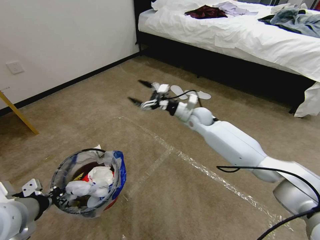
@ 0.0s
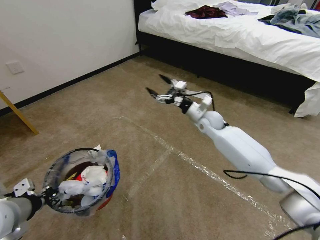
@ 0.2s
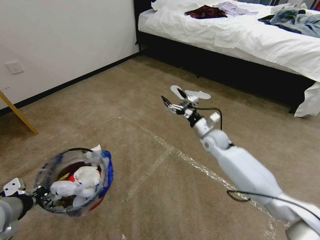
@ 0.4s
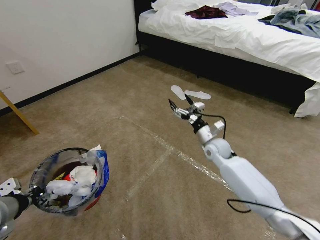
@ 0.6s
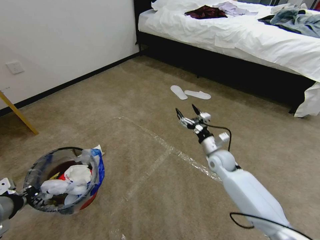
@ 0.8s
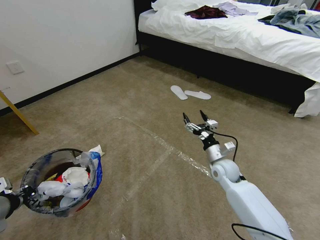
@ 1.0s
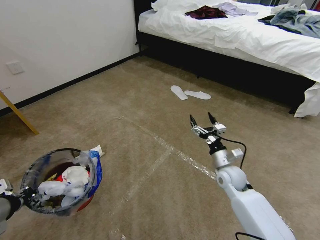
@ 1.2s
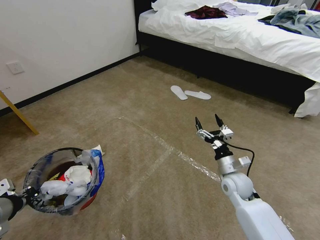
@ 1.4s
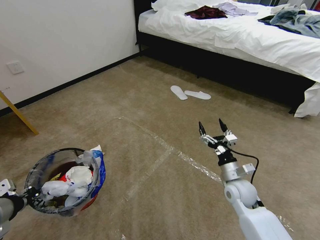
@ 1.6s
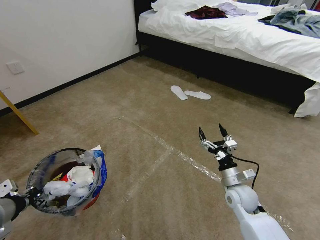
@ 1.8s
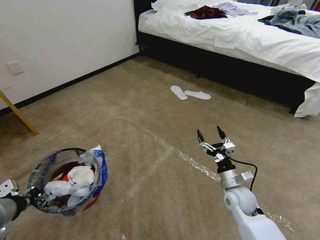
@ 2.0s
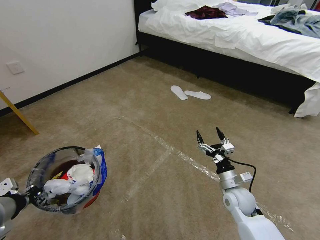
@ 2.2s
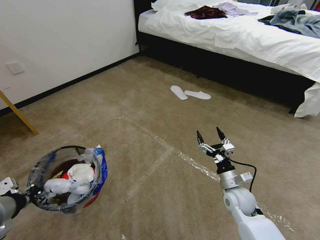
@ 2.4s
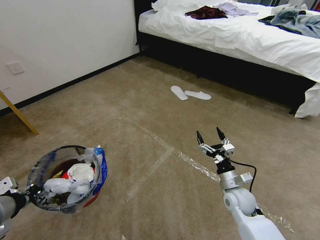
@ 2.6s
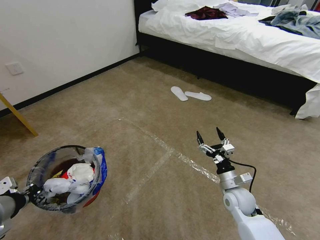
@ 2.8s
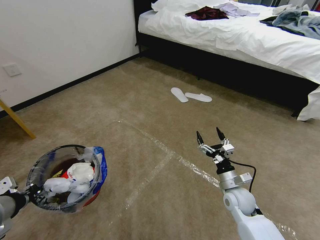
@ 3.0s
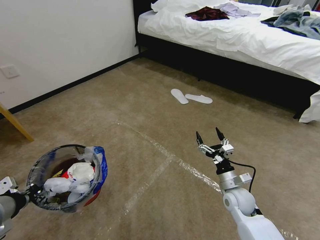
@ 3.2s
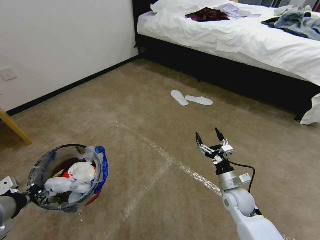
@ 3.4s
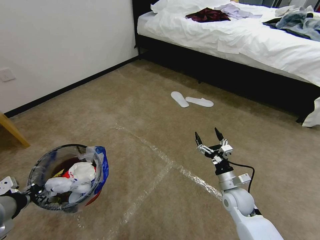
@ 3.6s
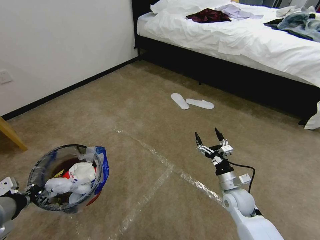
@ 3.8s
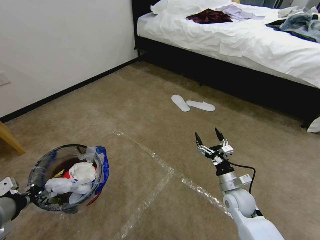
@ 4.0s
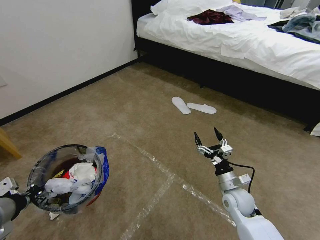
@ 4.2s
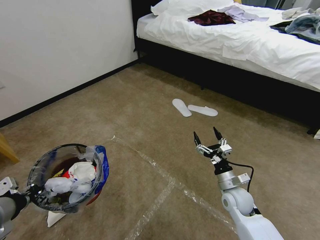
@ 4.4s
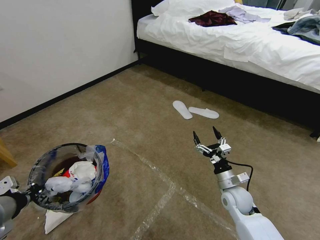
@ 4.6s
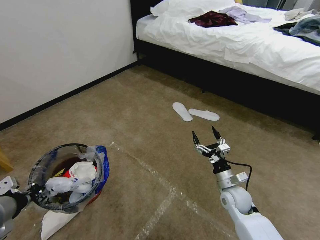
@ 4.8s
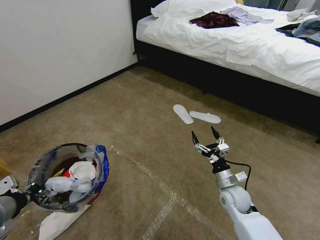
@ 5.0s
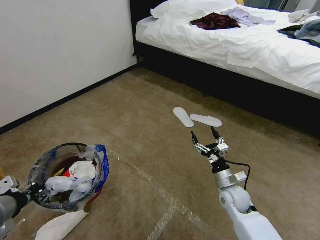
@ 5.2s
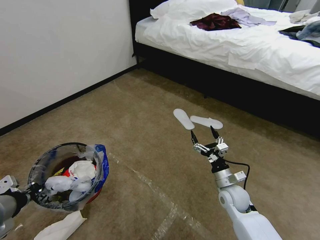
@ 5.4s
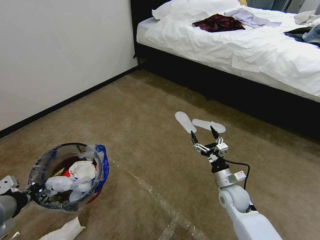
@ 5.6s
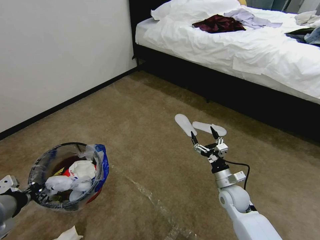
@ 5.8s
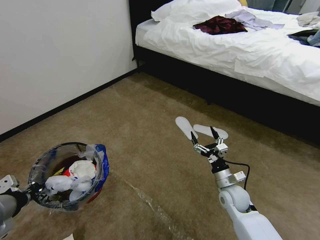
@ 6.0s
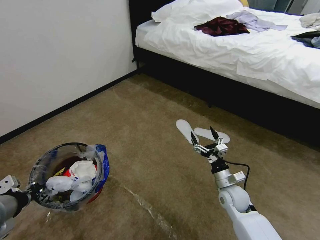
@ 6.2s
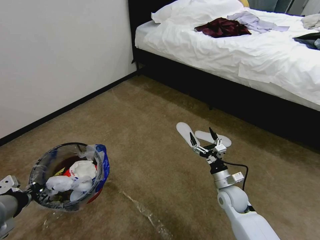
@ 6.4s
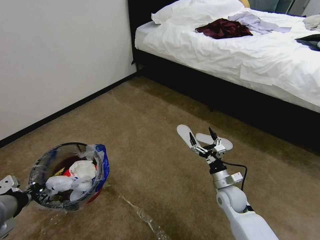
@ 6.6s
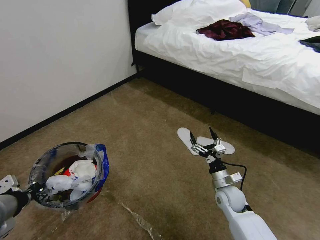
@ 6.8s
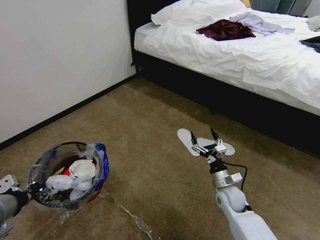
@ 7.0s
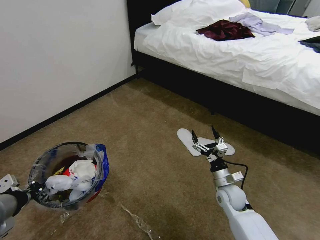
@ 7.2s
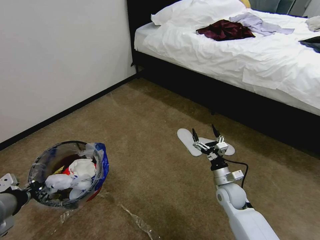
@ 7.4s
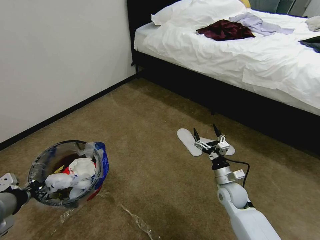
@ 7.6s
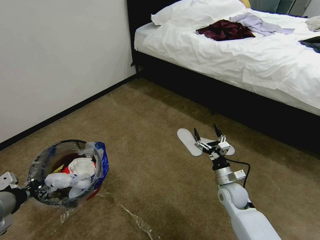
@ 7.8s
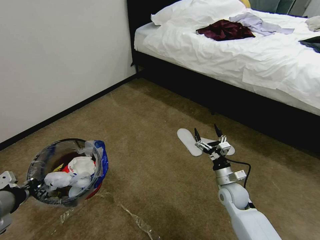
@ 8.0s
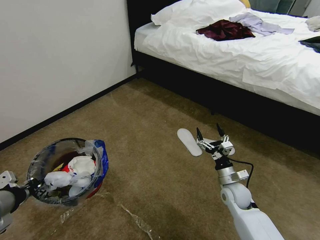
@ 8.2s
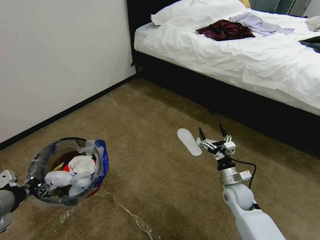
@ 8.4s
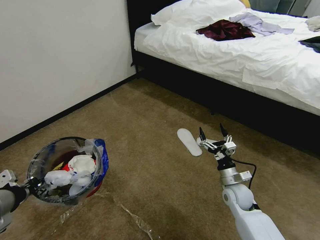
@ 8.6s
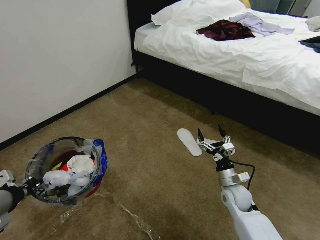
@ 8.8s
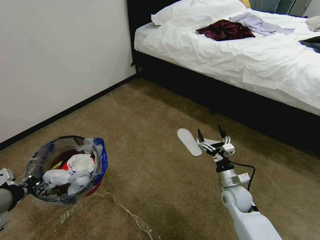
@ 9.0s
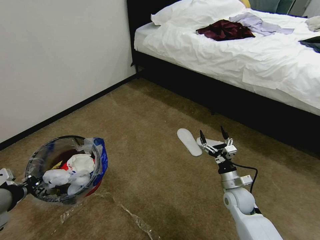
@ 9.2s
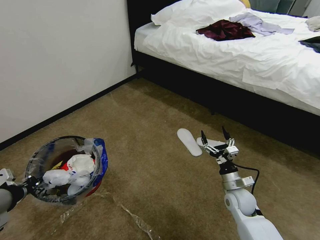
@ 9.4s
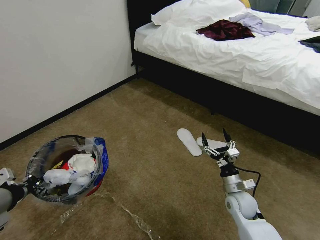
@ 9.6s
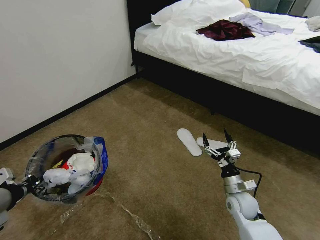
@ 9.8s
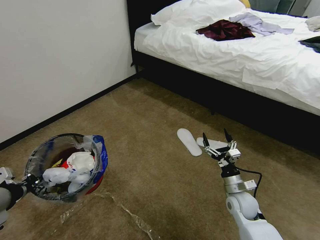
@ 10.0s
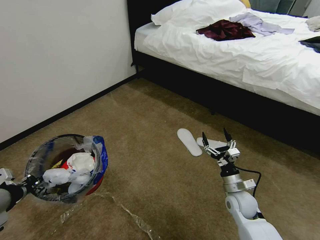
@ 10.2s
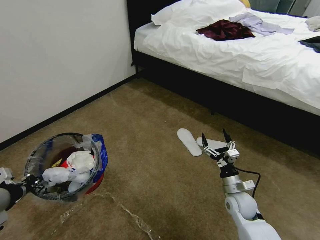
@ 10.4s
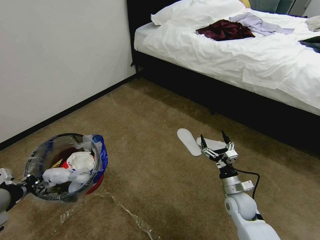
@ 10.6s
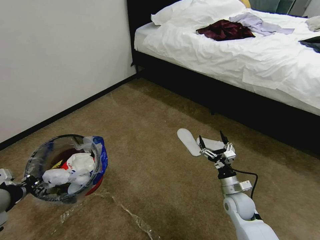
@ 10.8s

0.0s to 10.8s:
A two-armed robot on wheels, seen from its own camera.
Task of the whole recording: Pick up the trash bin and place the garbage on the floor into it.
0.0s to 1.6s: The right gripper heads backward, downward and to the right, covering approximately 30 cm.
1.6s to 3.0s: The grippers stay close to where they were, moving slightly.
6.2s to 7.8s: Neither gripper changes place.
7.8s to 10.8s: The grippers stay close to where they were, moving slightly.

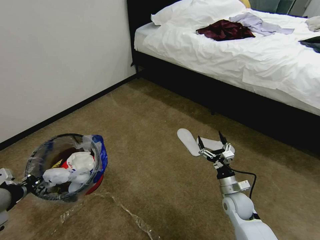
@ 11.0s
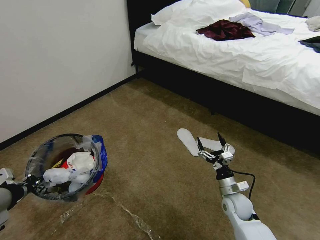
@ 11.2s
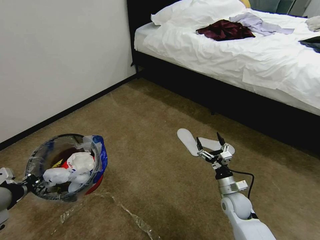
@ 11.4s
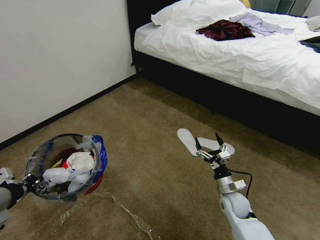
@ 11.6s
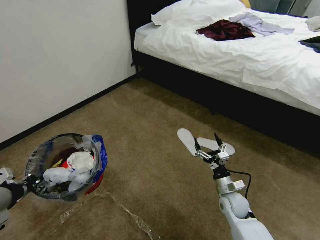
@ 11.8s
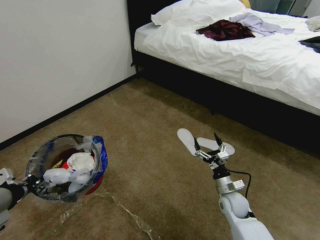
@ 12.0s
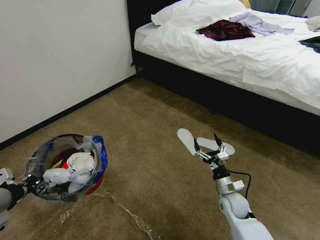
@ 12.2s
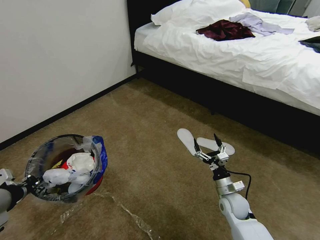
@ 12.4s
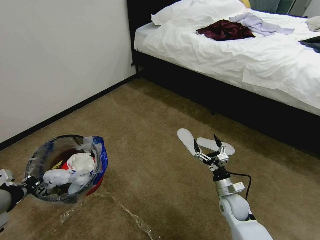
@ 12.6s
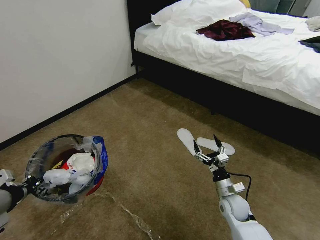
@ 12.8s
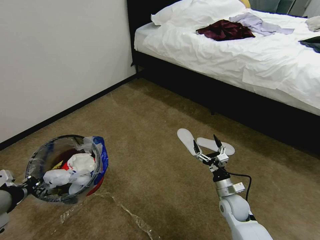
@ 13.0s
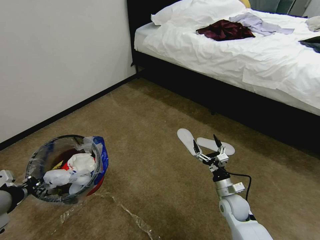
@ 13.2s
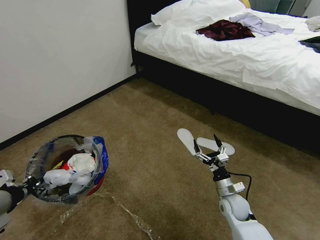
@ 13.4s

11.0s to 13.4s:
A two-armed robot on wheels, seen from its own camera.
Task of the whole recording: Pick up the trash bin and place the garbage on the floor into it.
11.0s to 12.2s: The grippers stay close to where they were, moving slightly.
12.2s to 13.4s: Both grippers stay put.

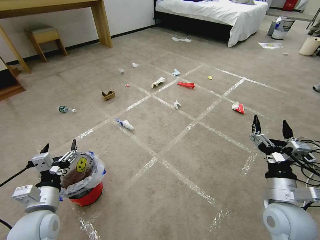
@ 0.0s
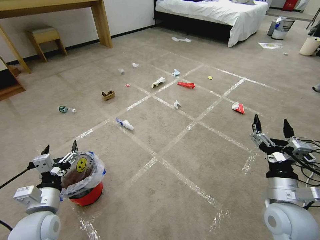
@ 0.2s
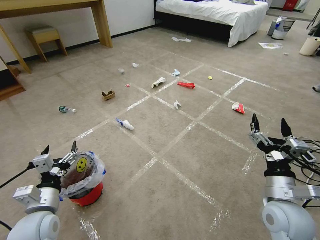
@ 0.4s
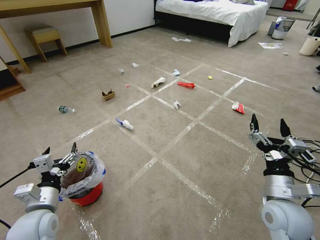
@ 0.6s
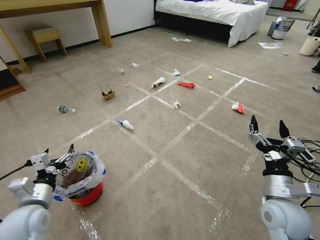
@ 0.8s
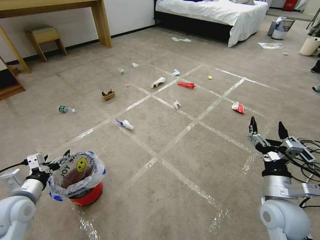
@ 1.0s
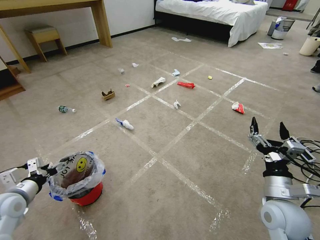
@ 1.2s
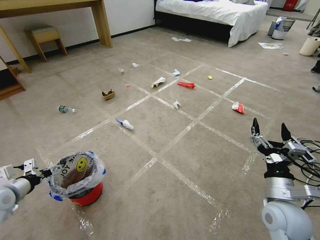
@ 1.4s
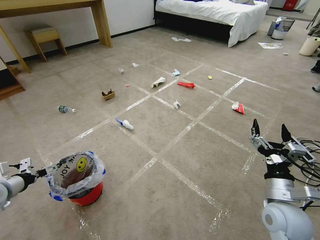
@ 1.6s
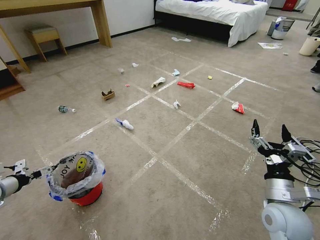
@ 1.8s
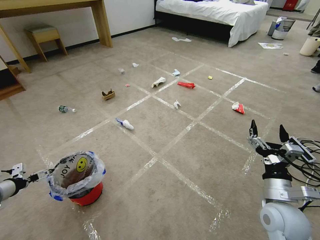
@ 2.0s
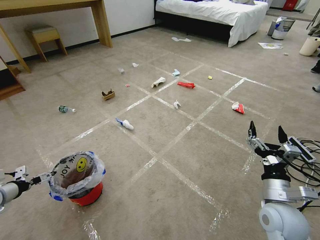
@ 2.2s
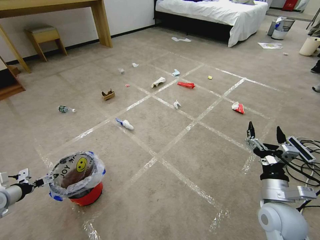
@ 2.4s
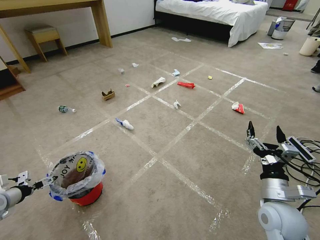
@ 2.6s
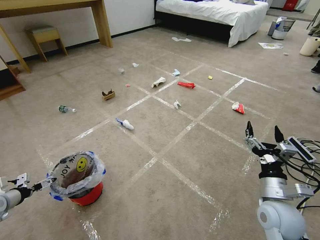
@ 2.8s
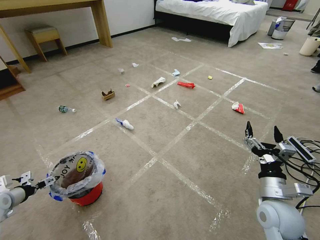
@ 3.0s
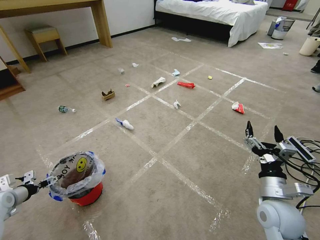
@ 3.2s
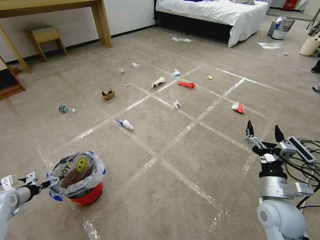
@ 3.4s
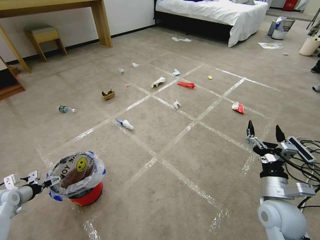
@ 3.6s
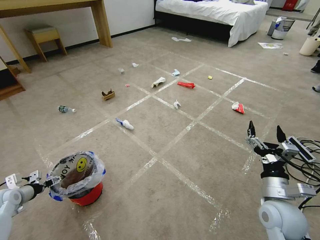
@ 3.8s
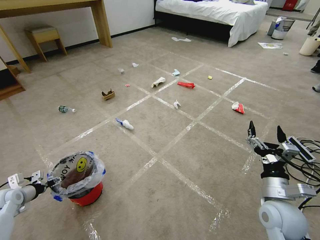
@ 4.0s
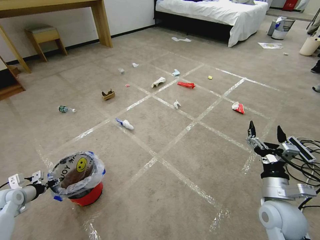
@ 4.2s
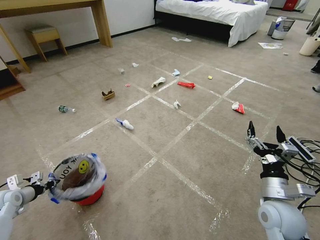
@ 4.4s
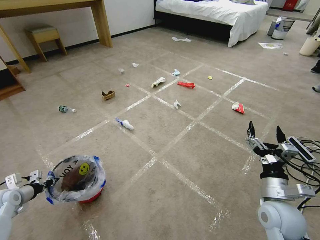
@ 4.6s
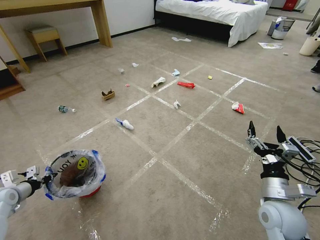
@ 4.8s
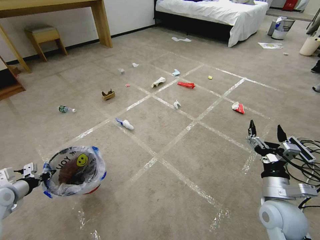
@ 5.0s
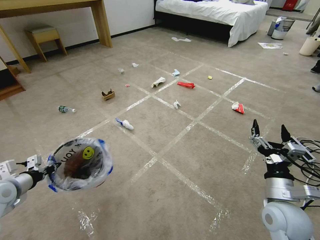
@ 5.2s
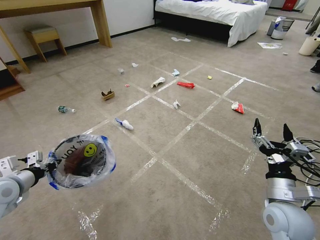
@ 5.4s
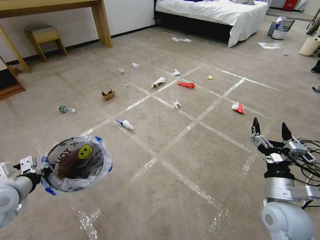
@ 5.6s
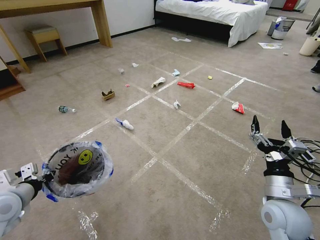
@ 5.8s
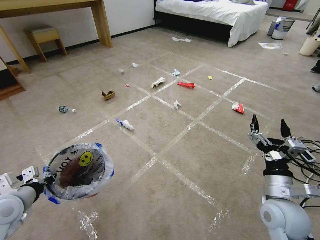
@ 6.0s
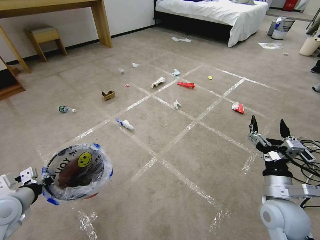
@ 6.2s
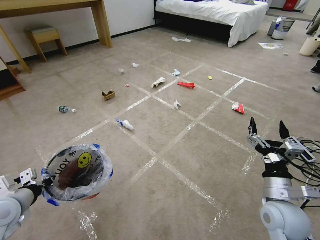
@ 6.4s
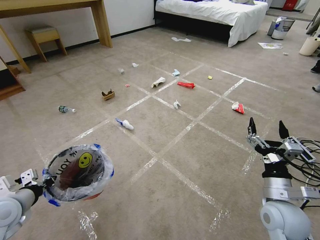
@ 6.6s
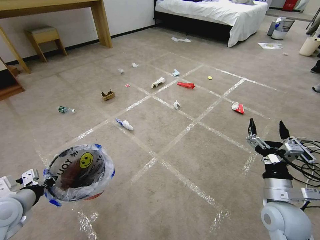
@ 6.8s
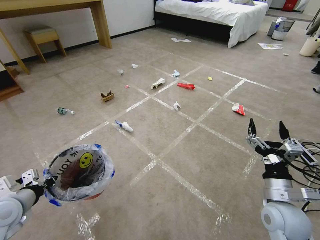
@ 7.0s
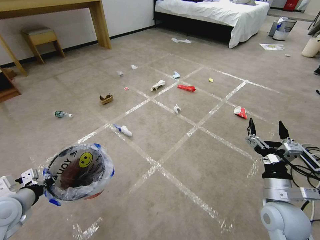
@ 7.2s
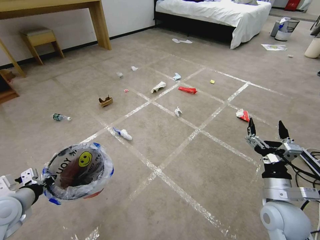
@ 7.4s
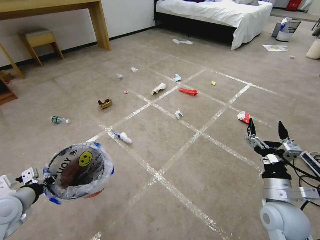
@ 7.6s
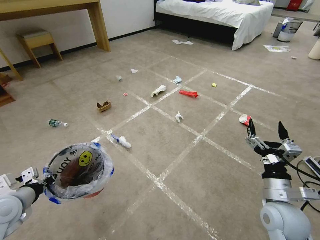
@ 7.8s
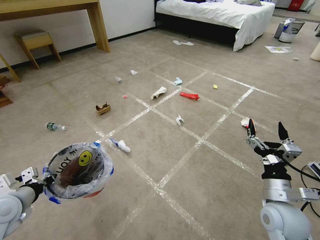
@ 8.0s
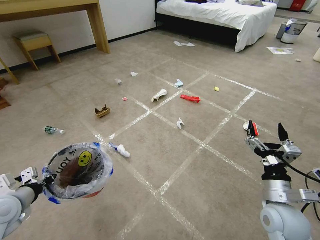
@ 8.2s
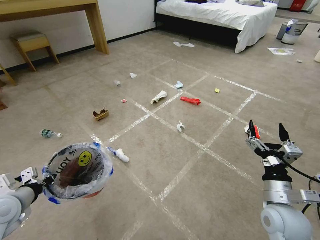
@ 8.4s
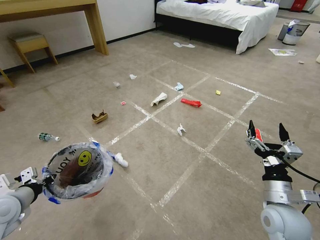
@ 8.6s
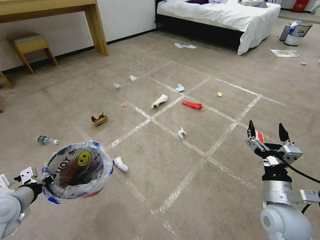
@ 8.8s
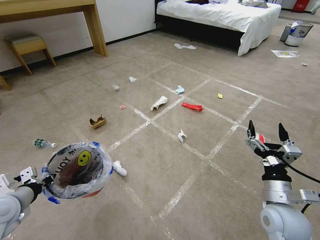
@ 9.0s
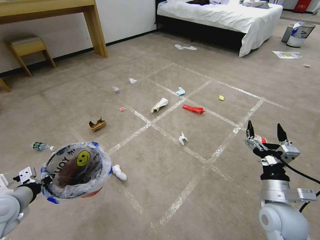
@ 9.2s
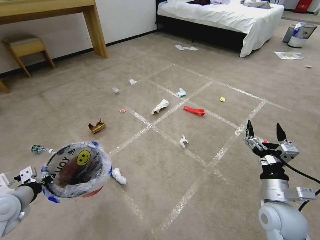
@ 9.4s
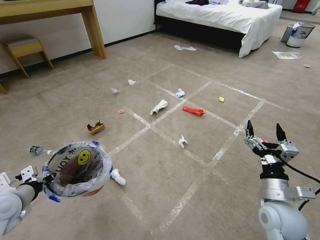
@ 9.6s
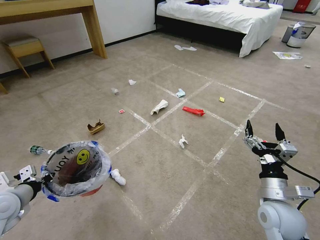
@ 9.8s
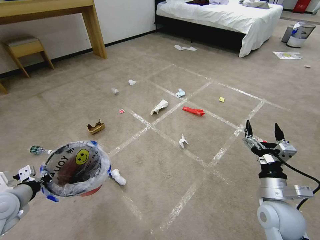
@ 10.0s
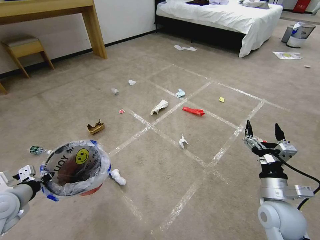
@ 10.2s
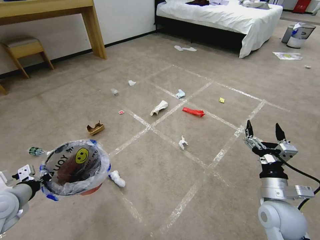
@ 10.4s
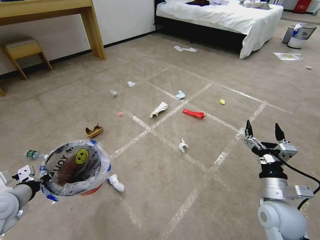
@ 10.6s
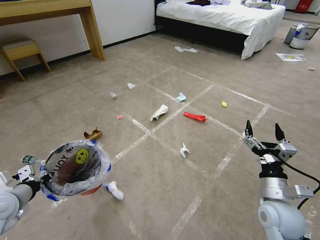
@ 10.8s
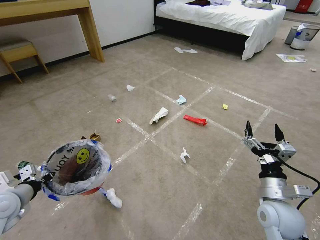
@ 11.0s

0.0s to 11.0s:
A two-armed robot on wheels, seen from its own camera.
Task of the whole recording: Pick up the trash bin and place the garbage on the floor into it.
1.6s to 3.2s: The left gripper is displaced downward by roughly 10 cm.
3.2s to 4.8s: The left gripper closes.
4.8s to 6.2s: The left gripper moves to the right, upward and backward, roughly 20 cm.
6.2s to 7.8s: Both grippers stay put.
9.4s to 11.0s: The two grippers keep their place.
